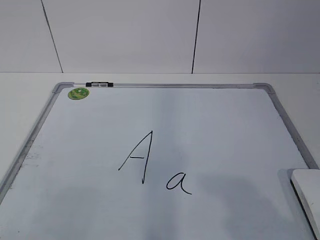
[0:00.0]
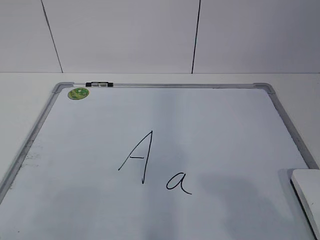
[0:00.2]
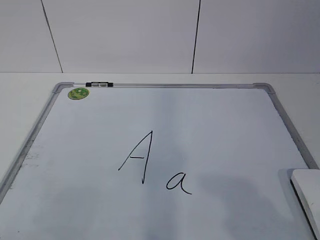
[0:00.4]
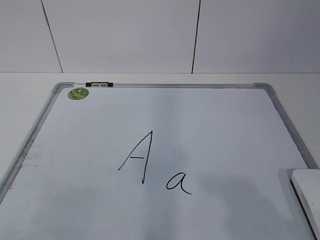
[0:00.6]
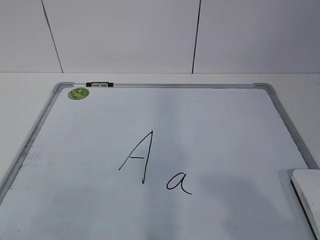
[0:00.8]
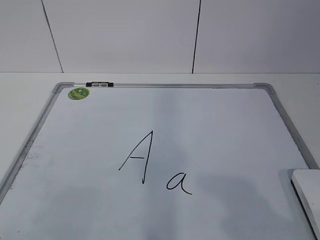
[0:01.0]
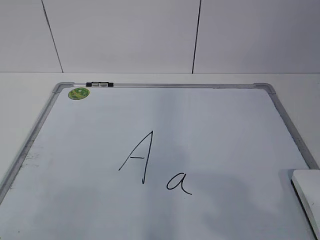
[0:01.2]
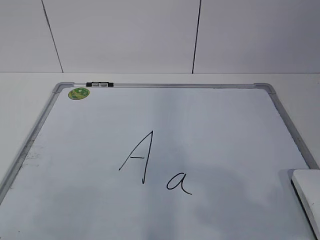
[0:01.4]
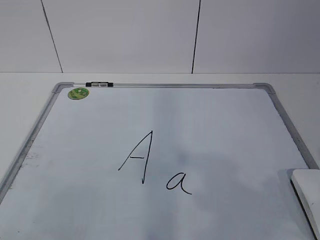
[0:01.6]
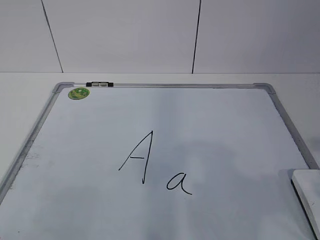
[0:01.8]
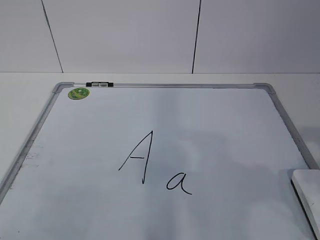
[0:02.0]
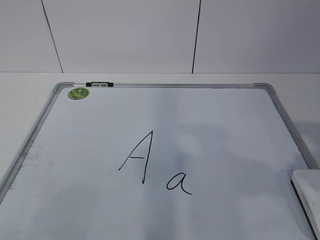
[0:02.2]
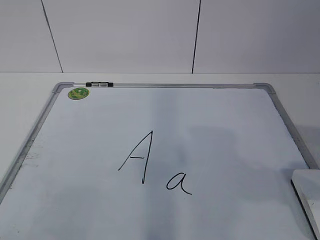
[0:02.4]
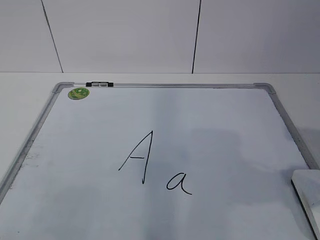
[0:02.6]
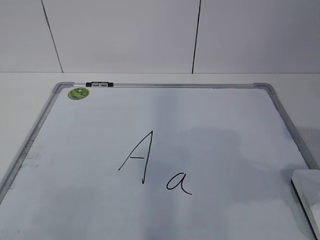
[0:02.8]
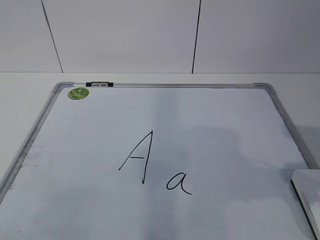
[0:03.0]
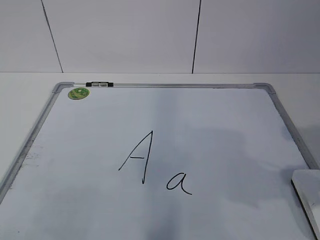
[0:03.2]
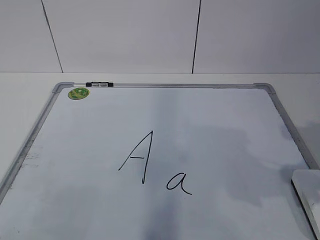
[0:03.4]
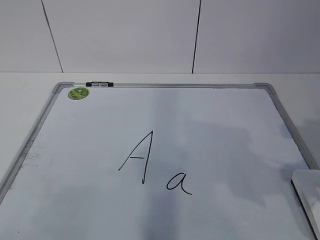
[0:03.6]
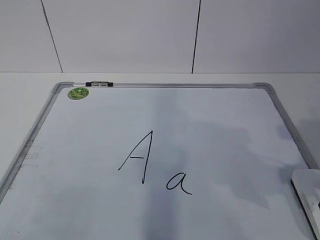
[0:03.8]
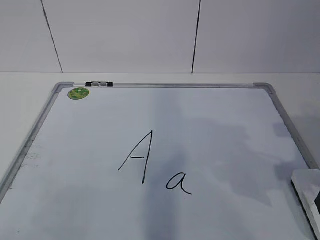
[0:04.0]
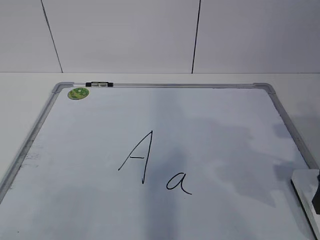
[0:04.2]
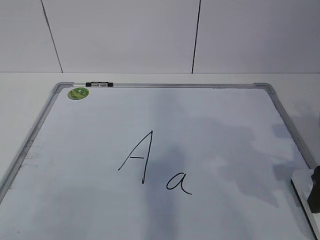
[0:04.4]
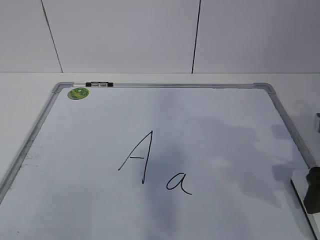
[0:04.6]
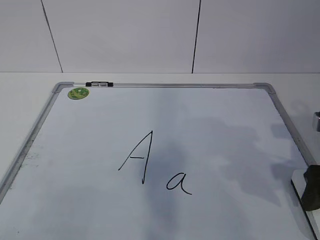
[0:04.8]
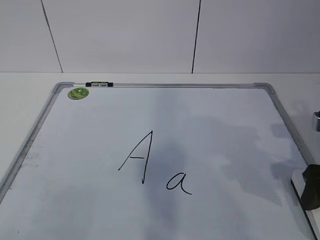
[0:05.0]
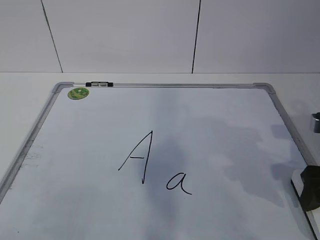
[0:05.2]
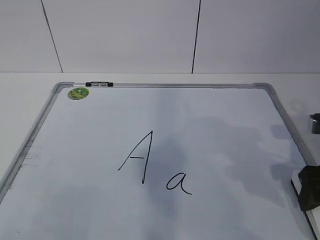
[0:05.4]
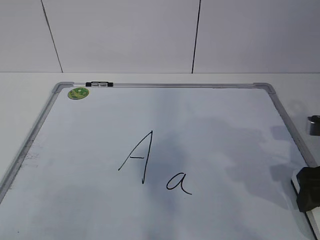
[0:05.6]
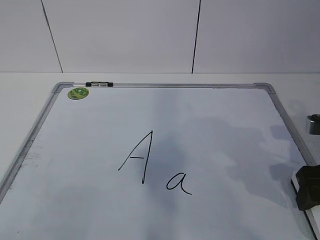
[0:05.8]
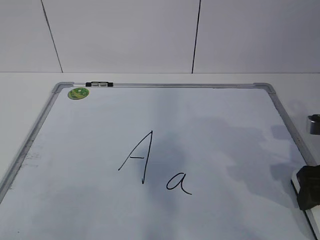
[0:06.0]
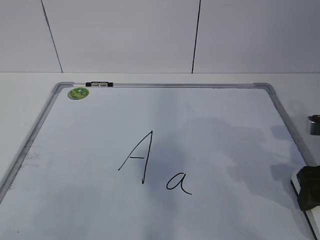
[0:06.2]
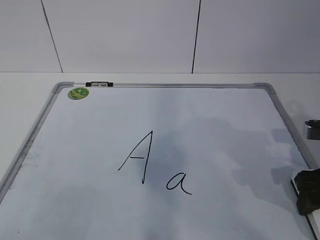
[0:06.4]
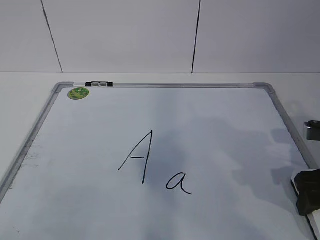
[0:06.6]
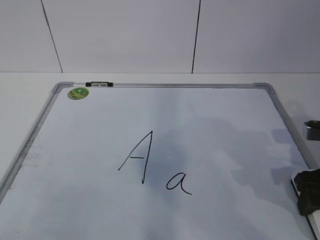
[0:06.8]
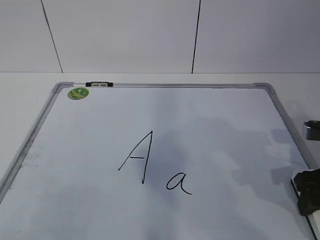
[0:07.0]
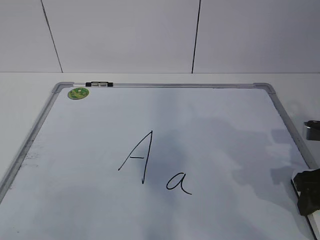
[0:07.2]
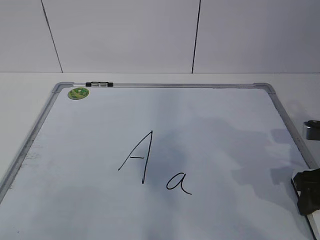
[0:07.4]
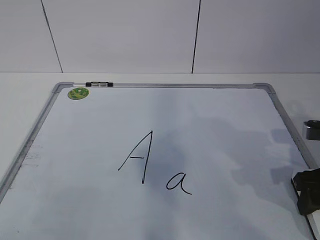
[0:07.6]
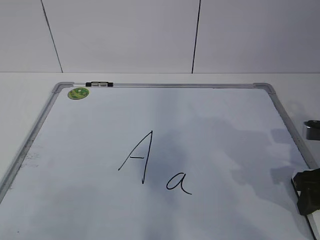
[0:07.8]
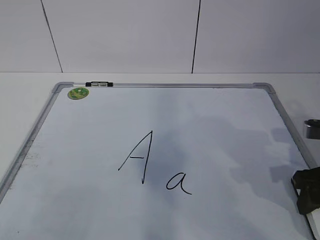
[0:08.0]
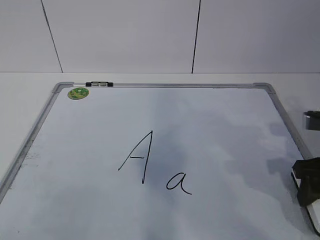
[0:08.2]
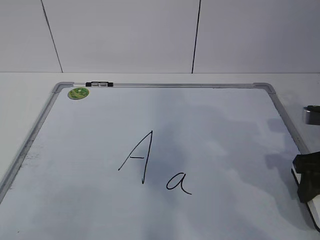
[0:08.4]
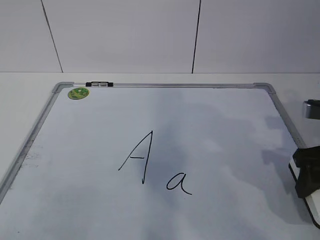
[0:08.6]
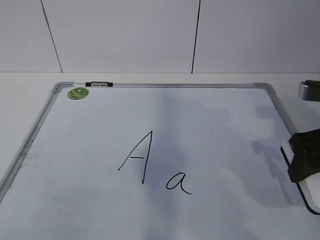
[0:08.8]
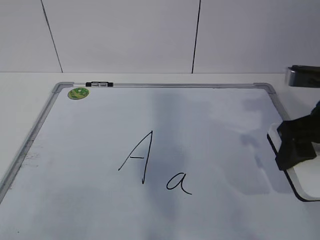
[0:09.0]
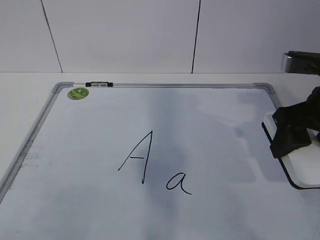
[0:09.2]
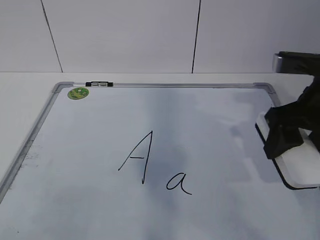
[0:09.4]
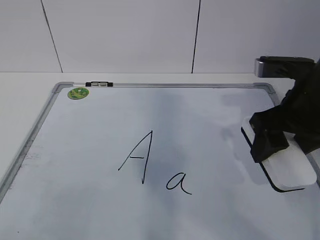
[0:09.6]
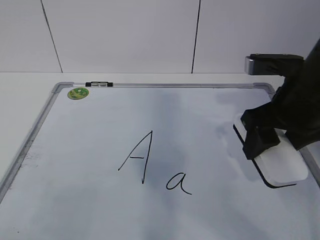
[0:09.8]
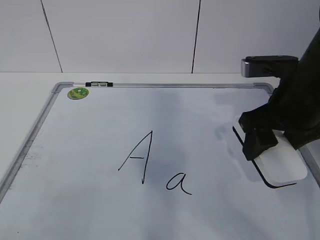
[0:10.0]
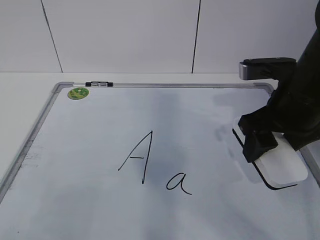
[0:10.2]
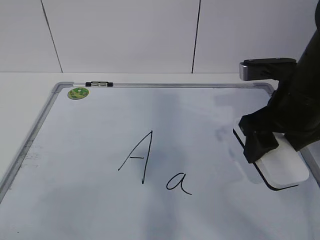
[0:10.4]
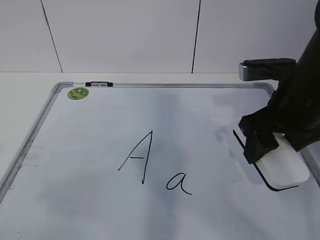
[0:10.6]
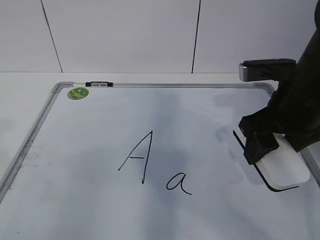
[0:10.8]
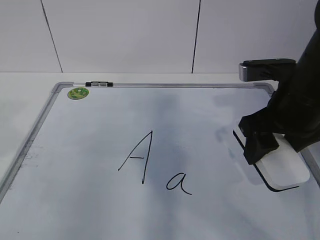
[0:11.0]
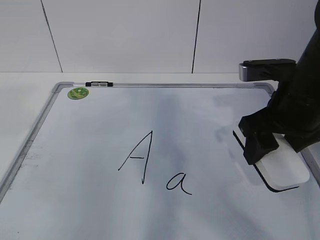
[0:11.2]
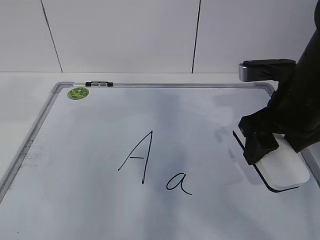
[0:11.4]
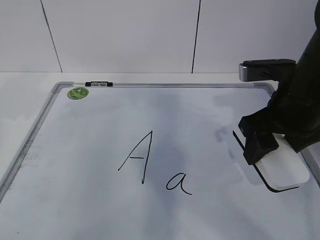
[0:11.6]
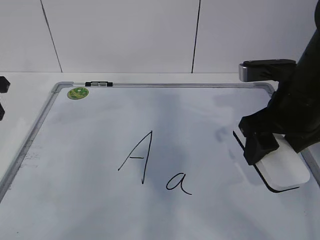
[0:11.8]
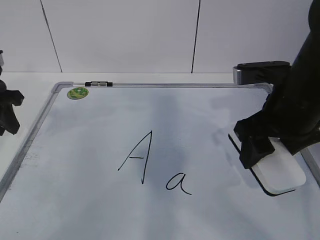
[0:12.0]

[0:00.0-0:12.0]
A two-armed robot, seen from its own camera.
Task of the whole recording: pick up the eraser on the blackboard and erase the letter "a".
Step, 0:06.4 to 0:11.8: Hold the drawing board steady with your left hand.
0:01.6 to 0:03.0: The right gripper heads forward, covering approximately 10 cm, and opens its fingers.
0:03.0 to 0:04.4: The right gripper is displaced forward by about 5 cm.
0:04.4 to 0:06.0: The grippers move only a little.
0:06.0 to 0:07.6: The right gripper closes.
0:07.6 to 0:09.0: The right gripper goes approximately 10 cm upward.
0:09.0 to 0:10.4: The right gripper moves about 5 cm.
0:10.4 to 0:12.0: The left gripper is displaced forward by some 35 cm.

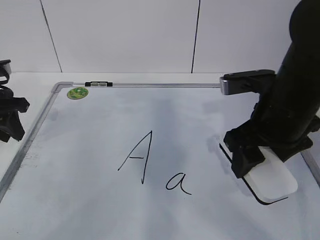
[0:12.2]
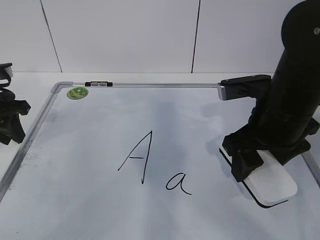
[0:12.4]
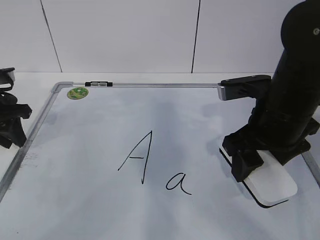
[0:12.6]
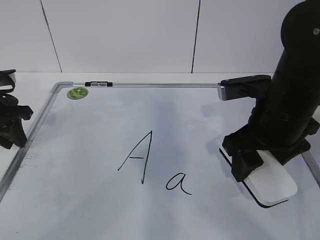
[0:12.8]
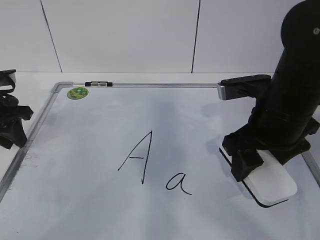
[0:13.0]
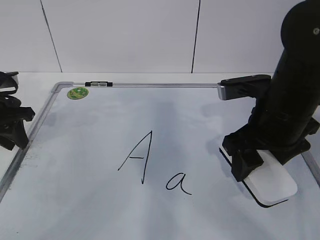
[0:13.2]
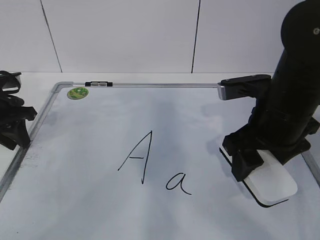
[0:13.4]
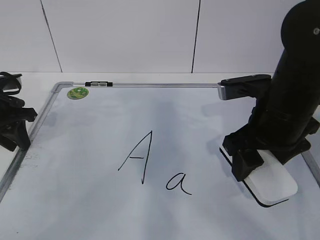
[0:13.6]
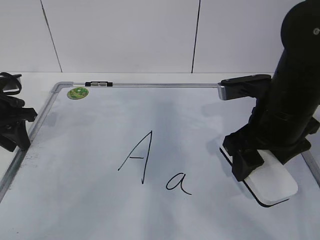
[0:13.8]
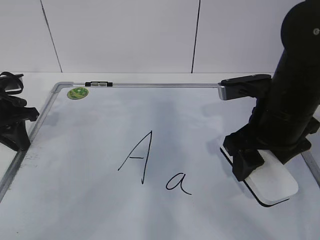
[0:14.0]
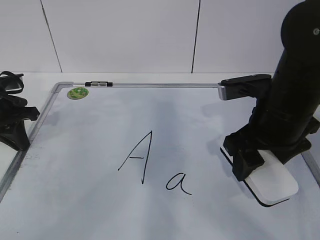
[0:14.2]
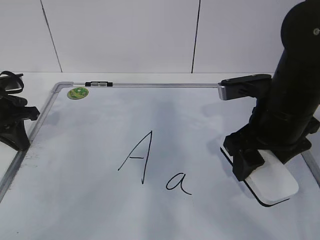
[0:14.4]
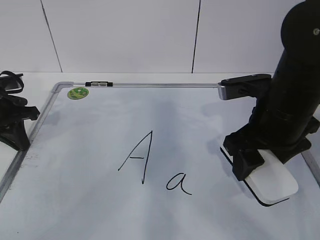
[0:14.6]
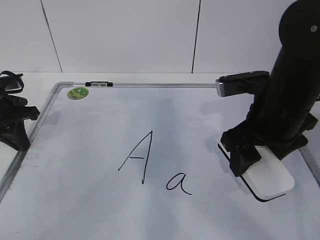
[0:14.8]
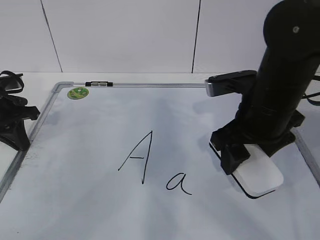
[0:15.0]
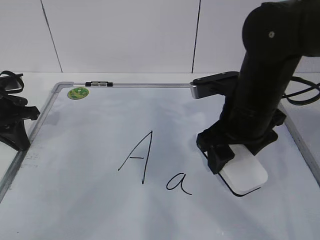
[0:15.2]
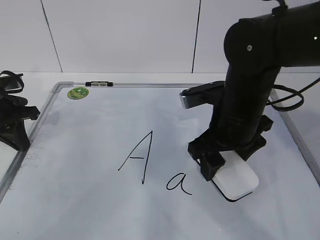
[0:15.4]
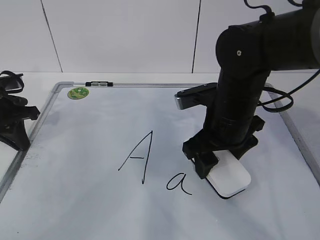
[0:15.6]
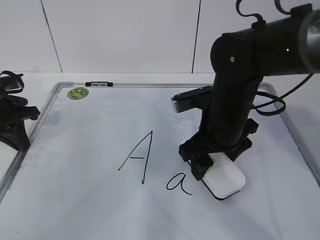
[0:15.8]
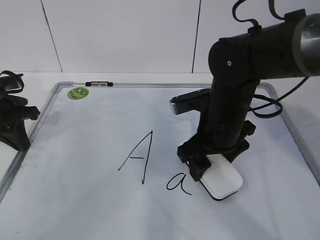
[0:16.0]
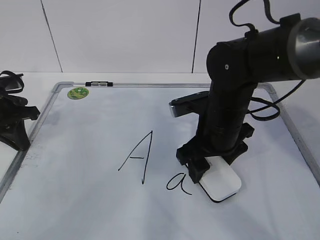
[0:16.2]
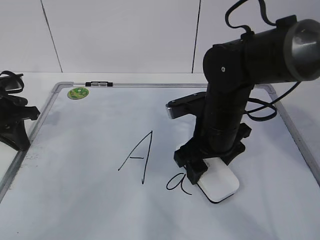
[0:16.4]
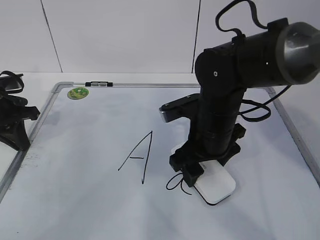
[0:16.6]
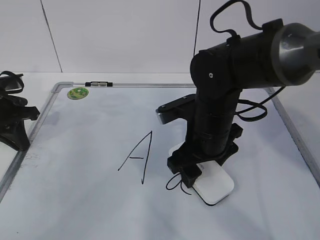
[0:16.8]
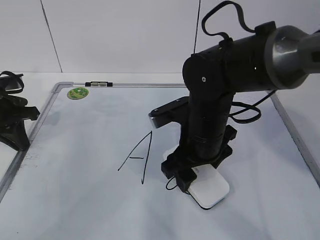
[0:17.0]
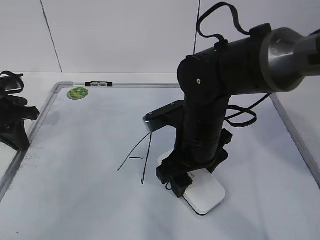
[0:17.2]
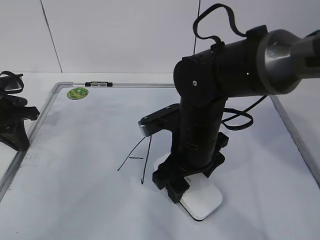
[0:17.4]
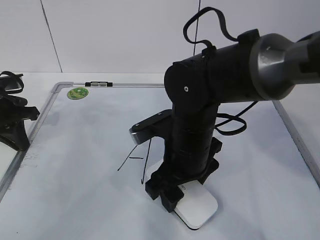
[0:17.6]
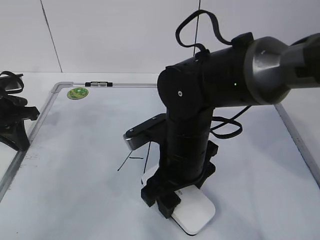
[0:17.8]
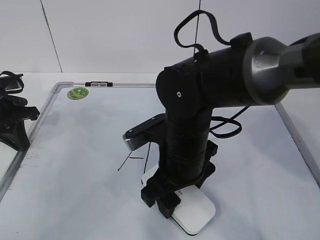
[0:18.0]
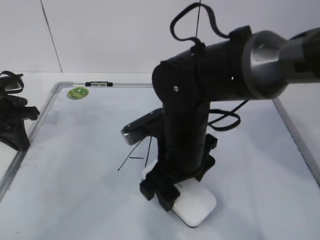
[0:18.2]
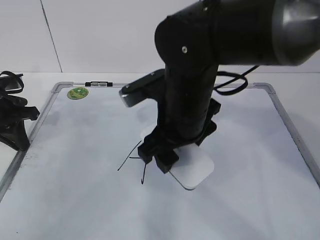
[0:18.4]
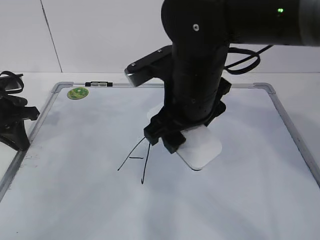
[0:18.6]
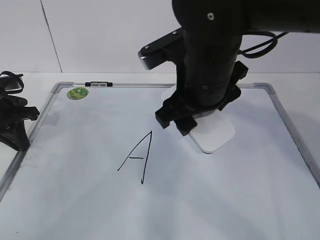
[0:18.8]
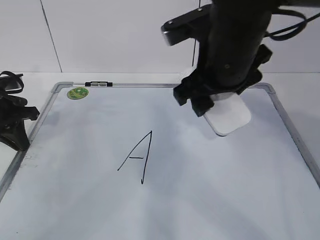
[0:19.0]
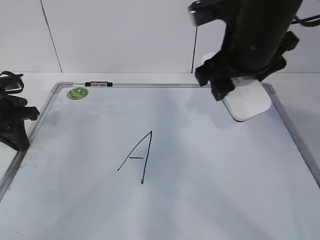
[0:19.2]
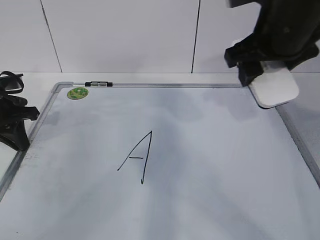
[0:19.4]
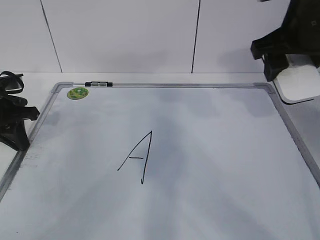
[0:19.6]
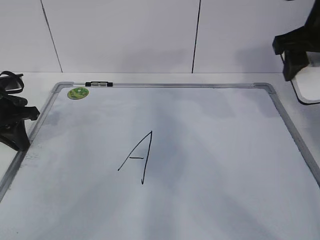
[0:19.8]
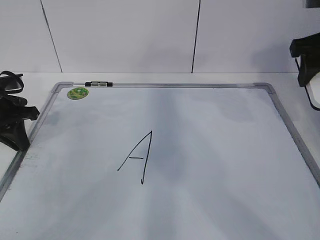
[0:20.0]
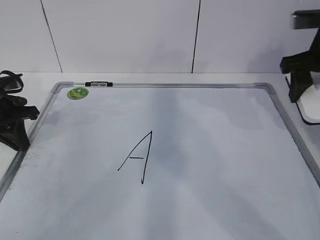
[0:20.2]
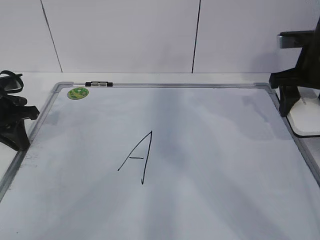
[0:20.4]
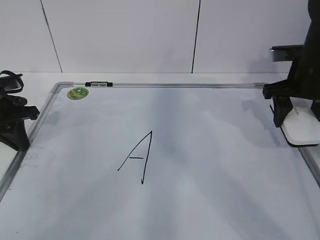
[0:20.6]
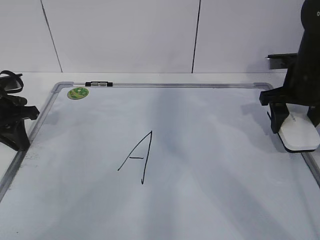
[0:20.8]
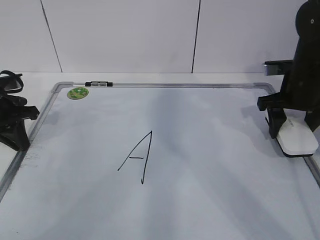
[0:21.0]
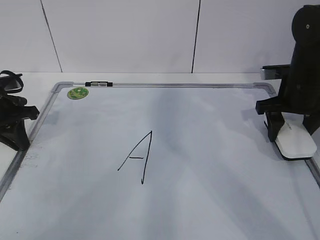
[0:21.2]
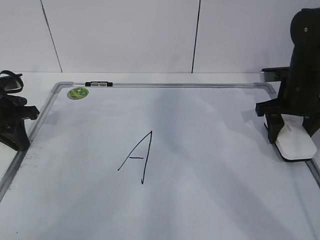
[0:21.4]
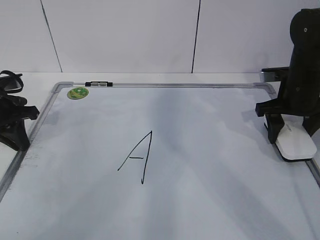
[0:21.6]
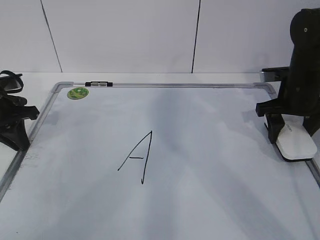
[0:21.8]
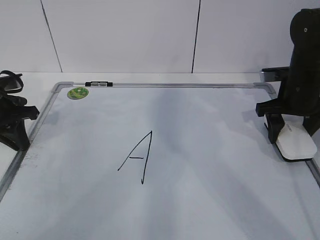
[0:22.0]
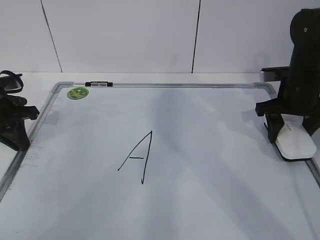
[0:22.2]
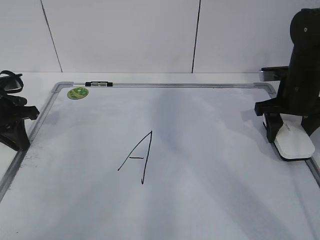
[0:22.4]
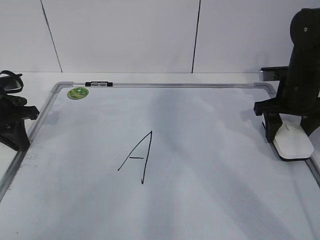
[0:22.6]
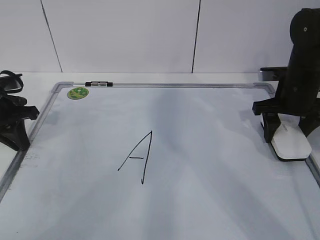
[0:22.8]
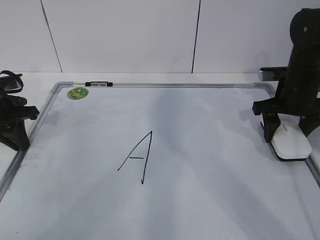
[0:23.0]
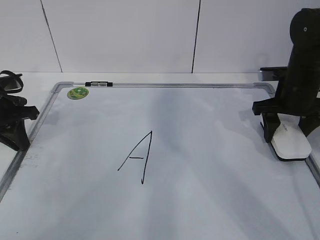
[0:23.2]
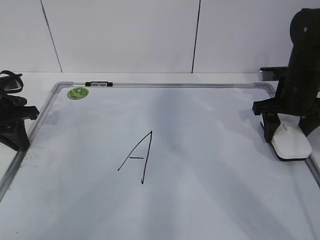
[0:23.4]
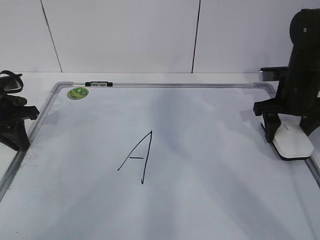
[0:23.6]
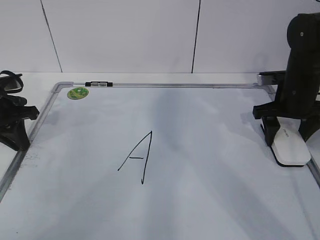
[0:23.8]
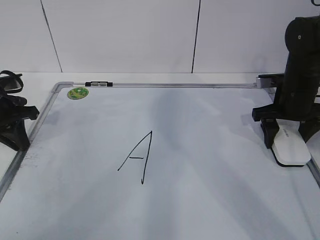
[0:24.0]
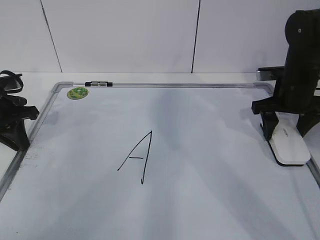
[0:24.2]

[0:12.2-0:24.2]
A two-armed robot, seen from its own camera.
Task of the whole recording: pick up the eraser on the blackboard and erase the letter "a".
Step, 0:12.2 to 0:14.8: Erase the letter a with your right hand.
Step, 0:15.0 to 0:19.6: Put down the eraser with your right hand.
0:12.2 to 0:13.8: There are only small adjustments of the grippers.
0:13.8 to 0:15.2: The left gripper closes its fingers.
0:15.2 to 0:16.6: The right gripper goes some 5 cm downward.
0:16.6 to 0:18.2: The right gripper travels to the left by about 5 cm.
0:18.2 to 0:19.8: The right gripper goes some 25 cm to the right and upward.
0:19.8 to 0:21.2: The right gripper moves downward, some 15 cm.
0:21.2 to 0:22.6: Neither gripper changes place.
0:22.6 to 0:24.2: The grippers make only small movements.
